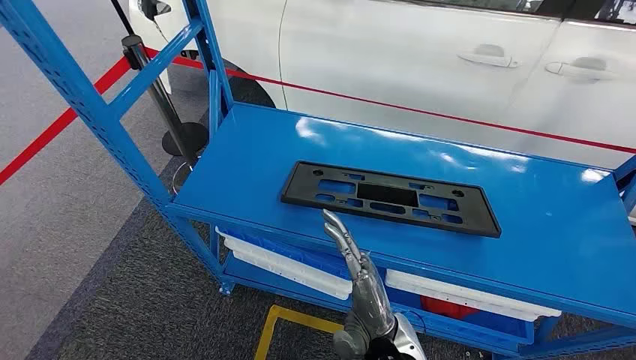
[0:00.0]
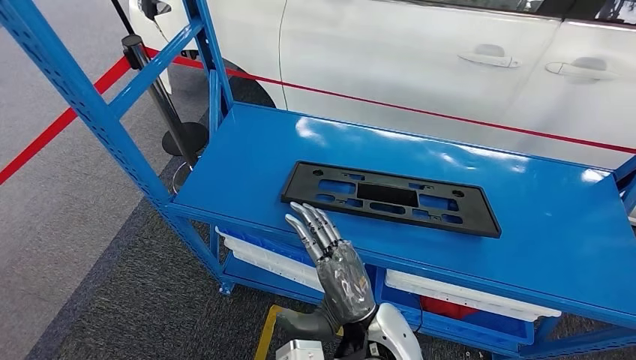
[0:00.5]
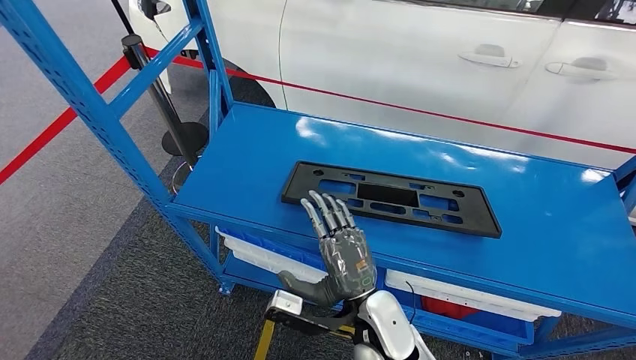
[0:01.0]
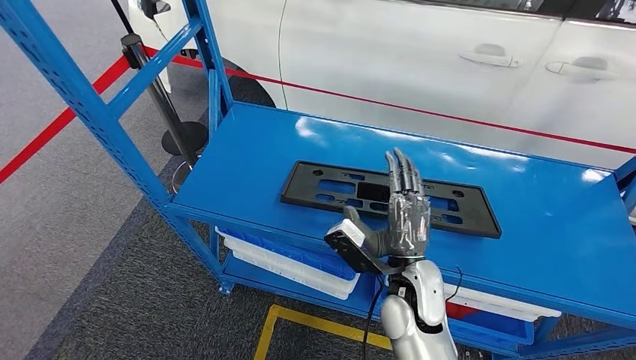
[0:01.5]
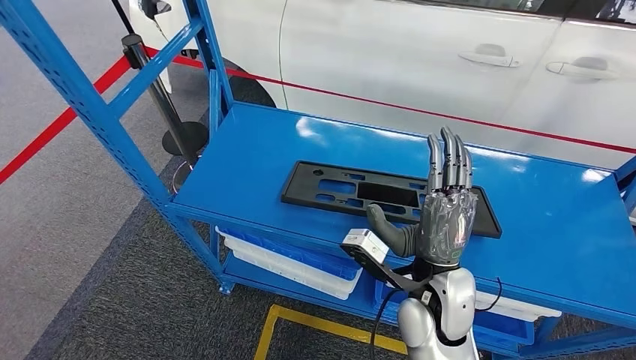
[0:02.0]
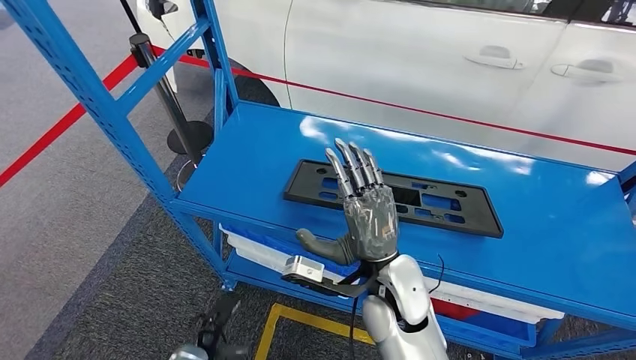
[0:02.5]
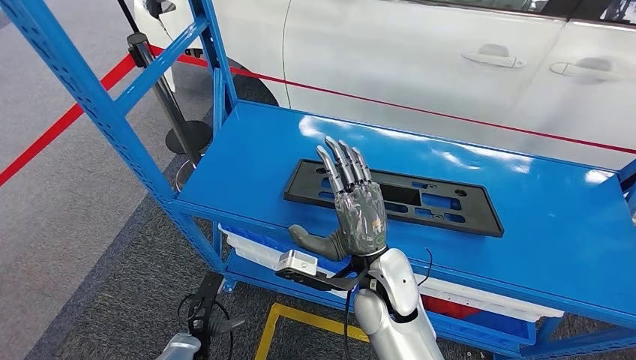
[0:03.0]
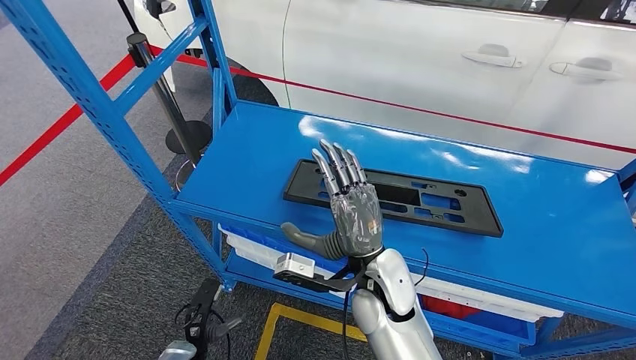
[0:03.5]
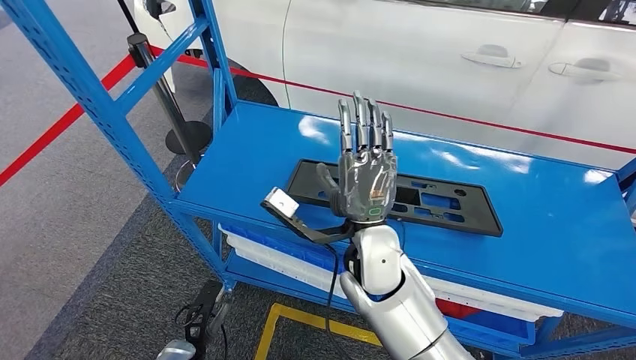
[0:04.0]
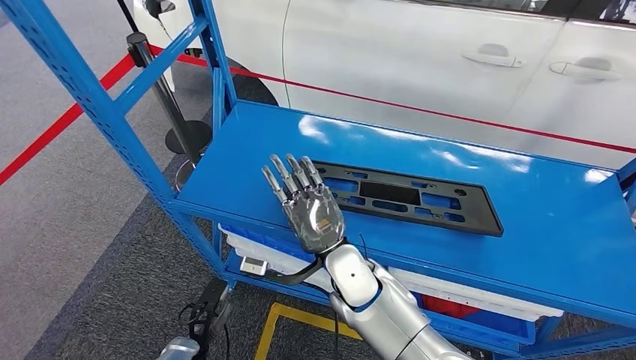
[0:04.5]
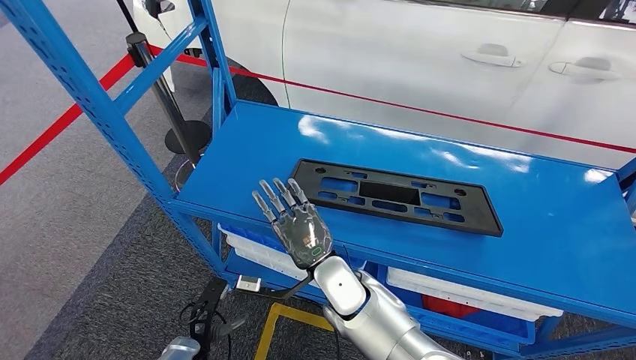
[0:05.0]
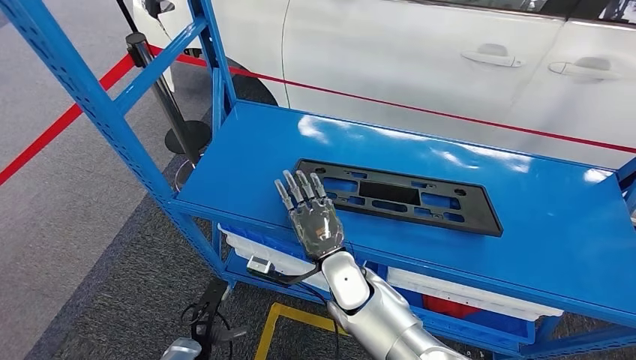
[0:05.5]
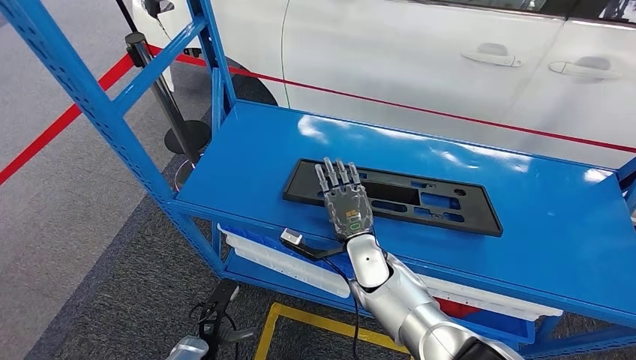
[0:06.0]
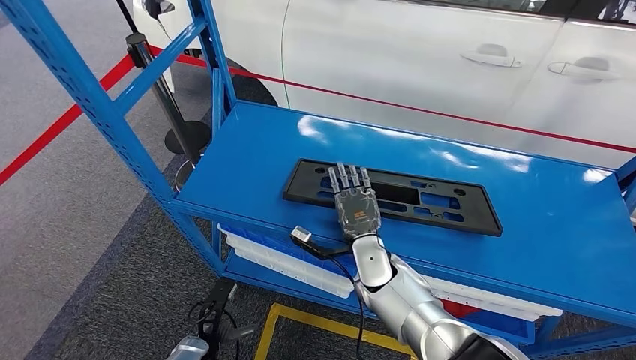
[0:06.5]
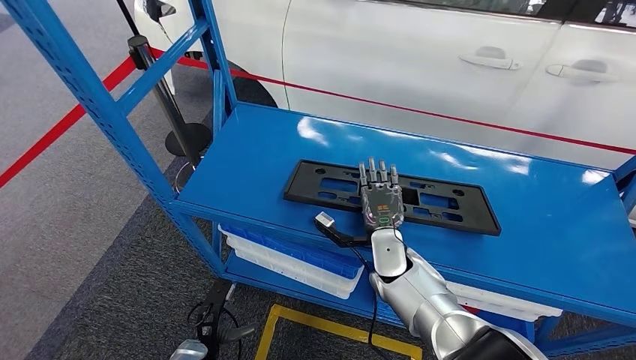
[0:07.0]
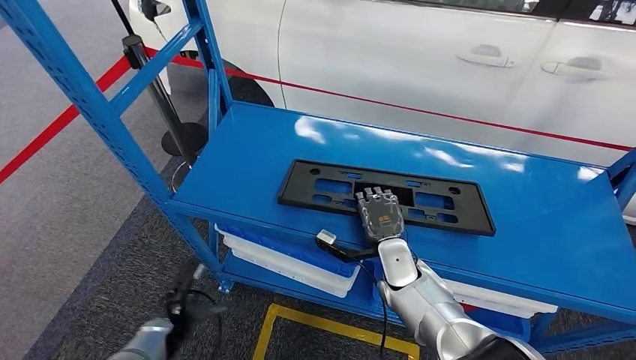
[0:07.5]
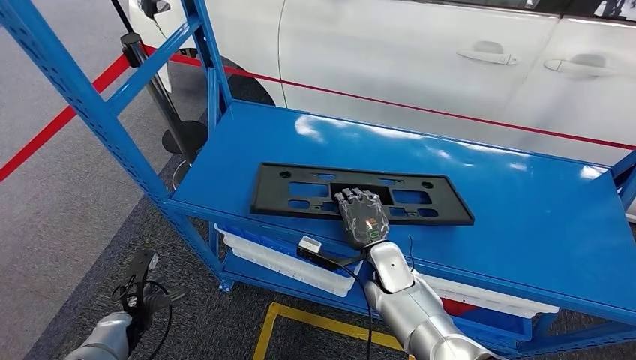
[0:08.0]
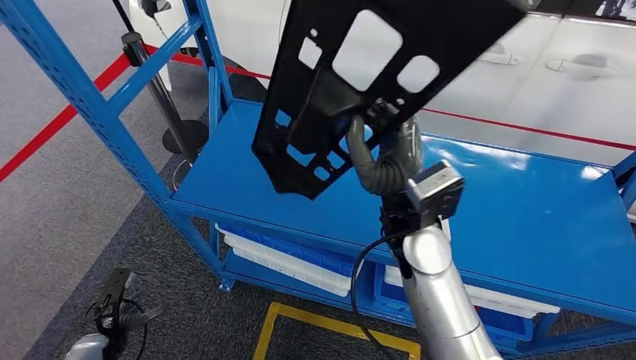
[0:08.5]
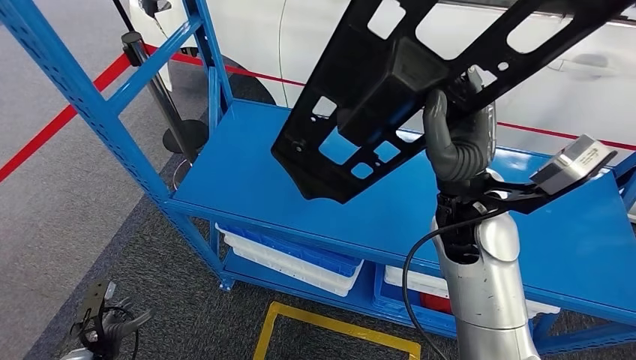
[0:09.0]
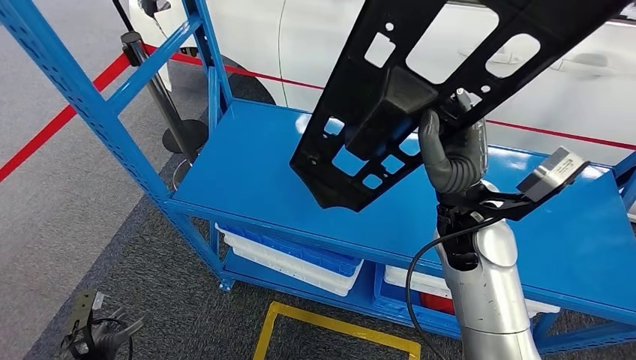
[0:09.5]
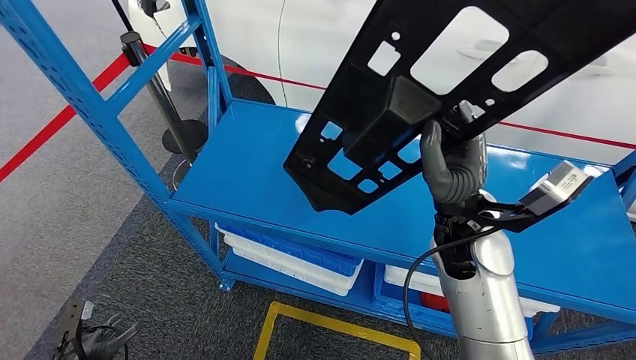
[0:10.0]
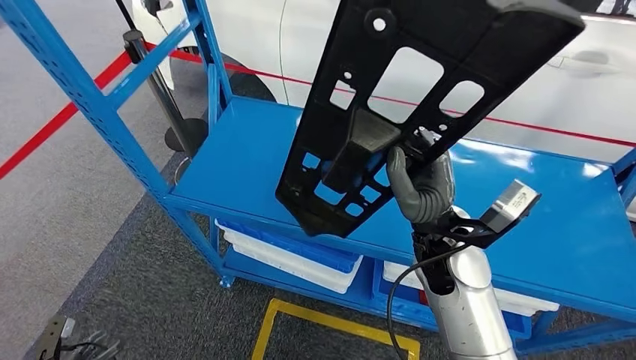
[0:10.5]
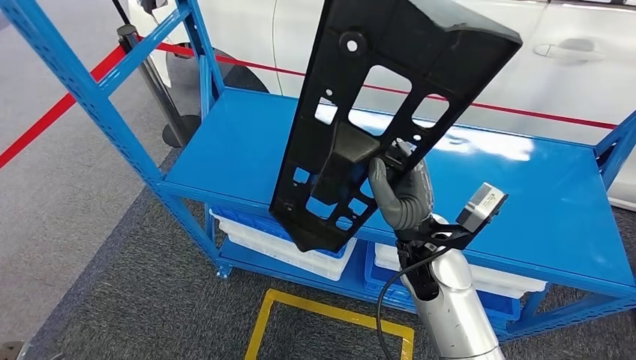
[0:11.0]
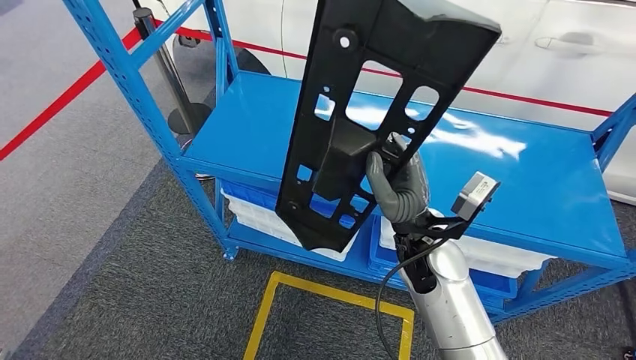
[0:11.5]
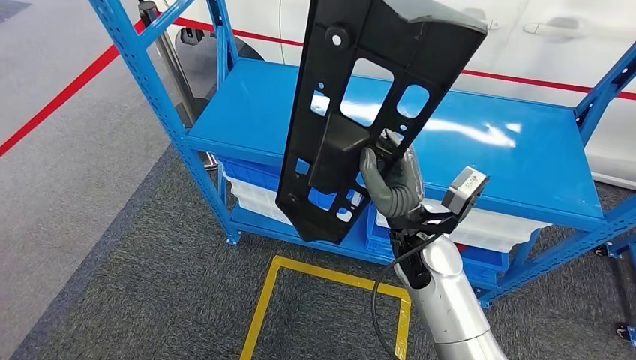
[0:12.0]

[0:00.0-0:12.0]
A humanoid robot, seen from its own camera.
Step, 0:00.0 to 0:10.0: Pick up the large material from the shelf.
0:02.0 to 0:04.0: The right hand goes approximately 10 cm to the left. The left hand goes approximately 15 cm forward.
0:04.0 to 0:06.0: The right hand heads downward and forward, covering about 15 cm.
0:06.0 to 0:08.0: The left hand is displaced to the left by some 15 cm.

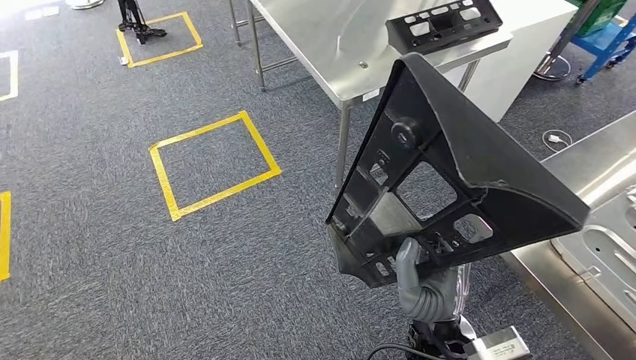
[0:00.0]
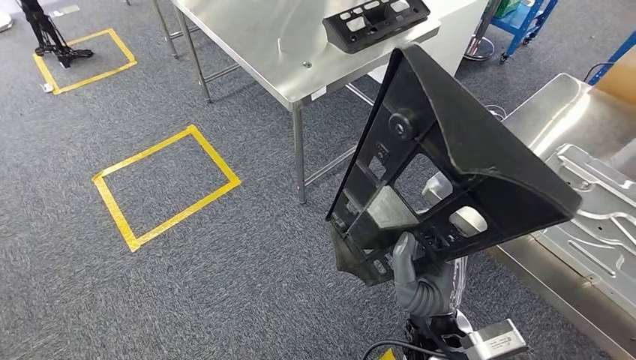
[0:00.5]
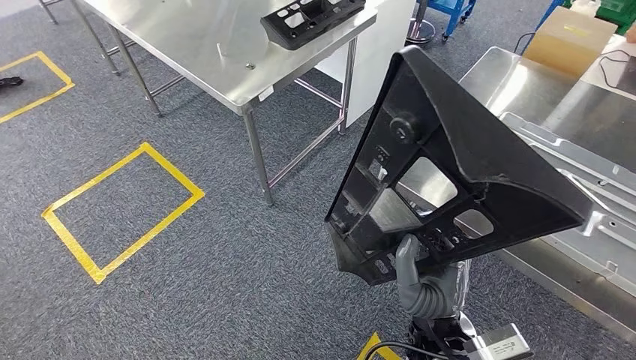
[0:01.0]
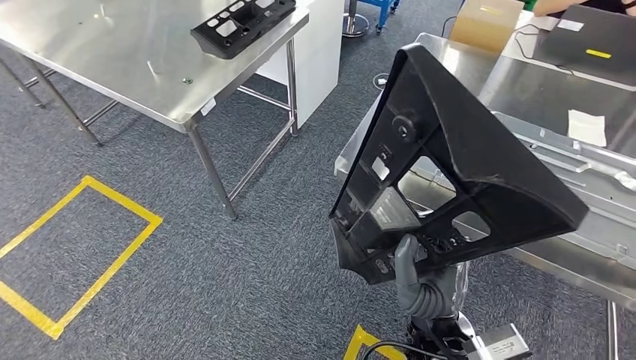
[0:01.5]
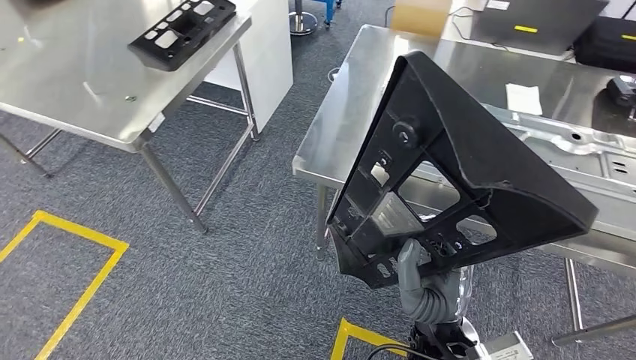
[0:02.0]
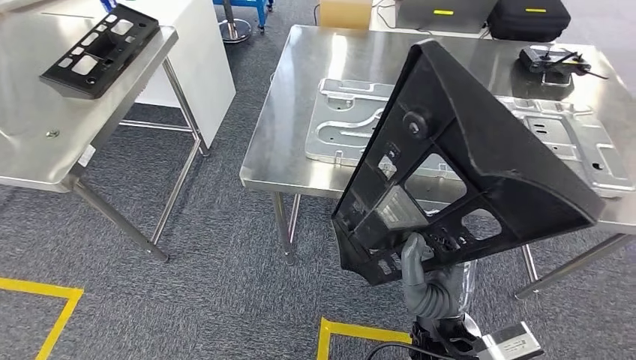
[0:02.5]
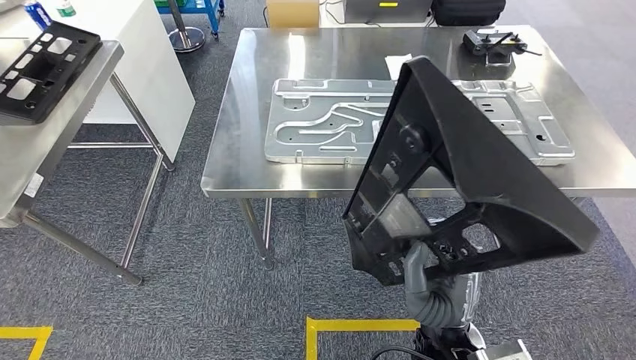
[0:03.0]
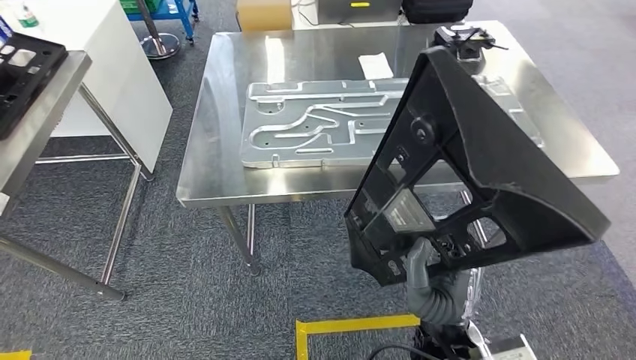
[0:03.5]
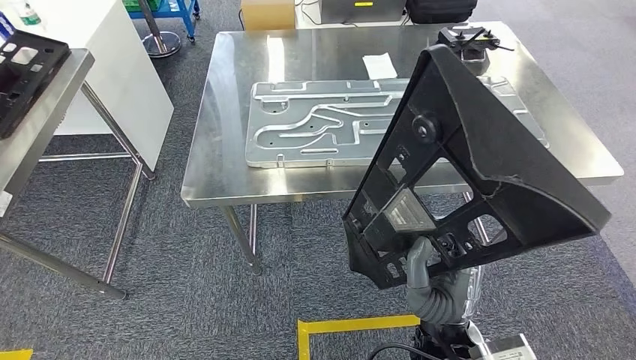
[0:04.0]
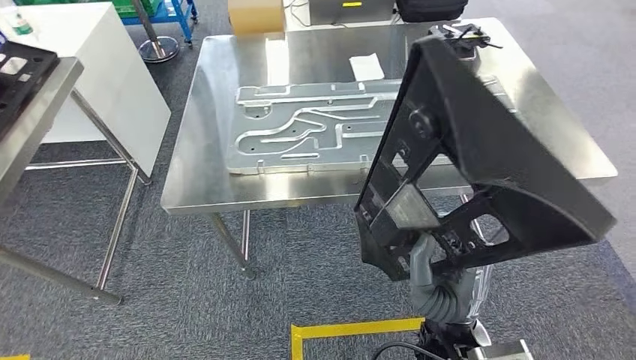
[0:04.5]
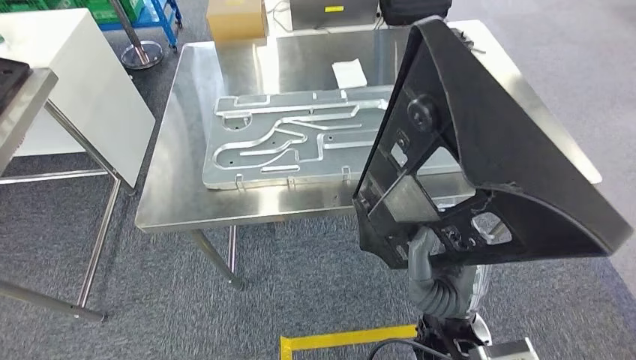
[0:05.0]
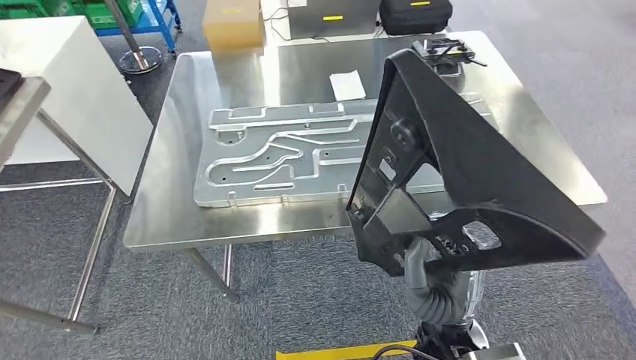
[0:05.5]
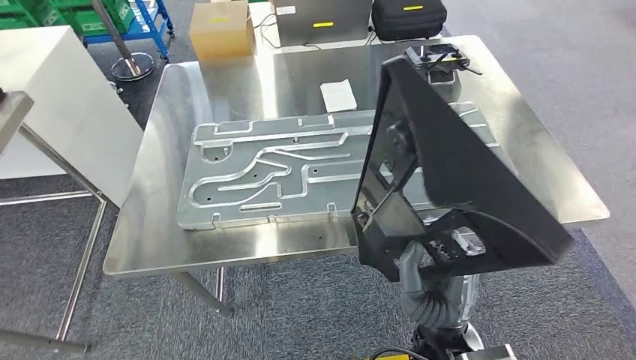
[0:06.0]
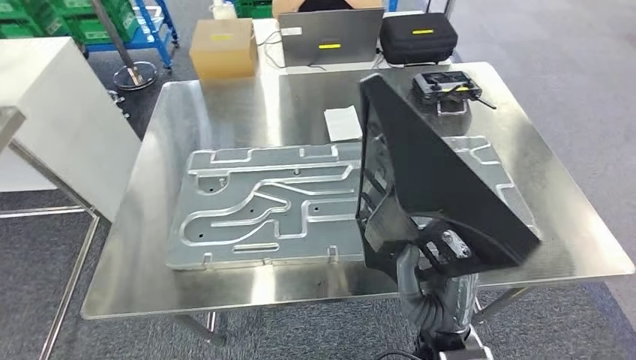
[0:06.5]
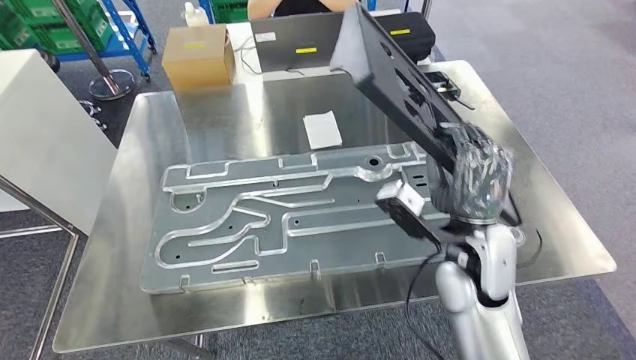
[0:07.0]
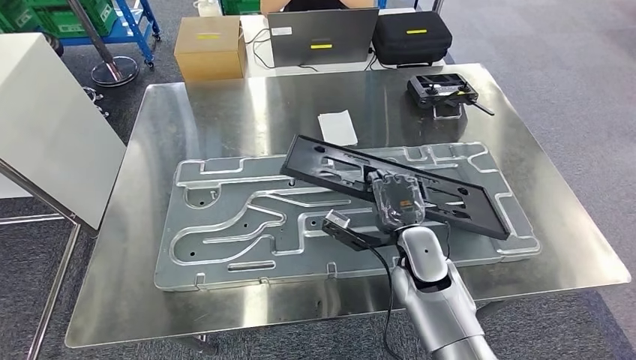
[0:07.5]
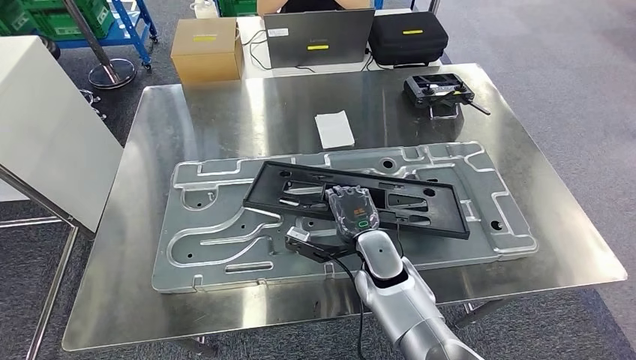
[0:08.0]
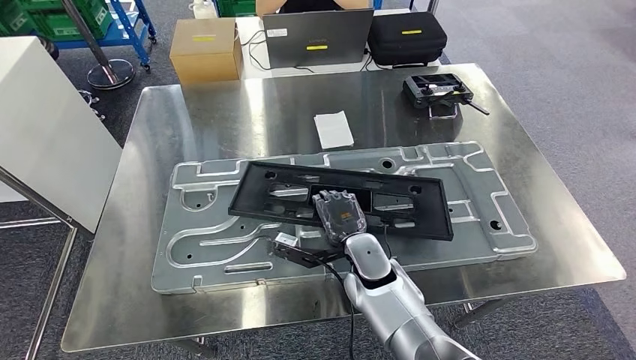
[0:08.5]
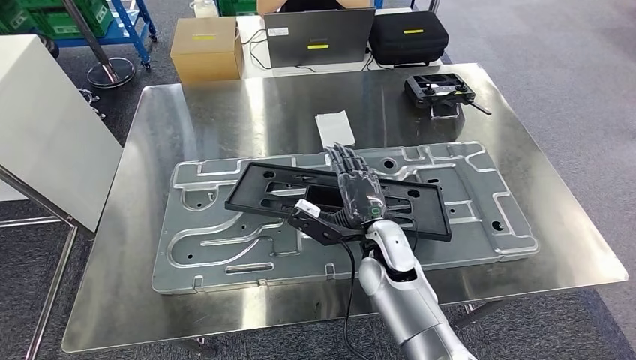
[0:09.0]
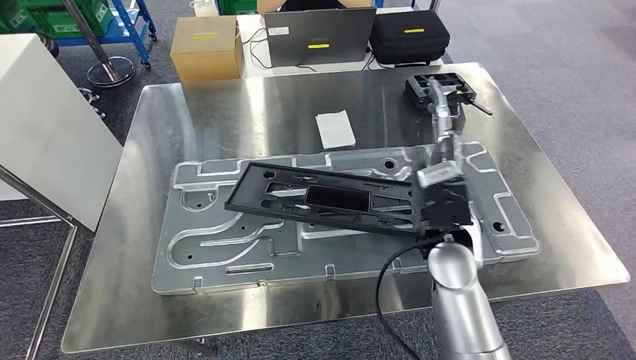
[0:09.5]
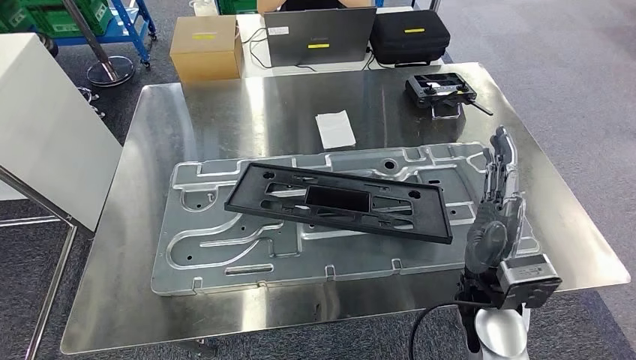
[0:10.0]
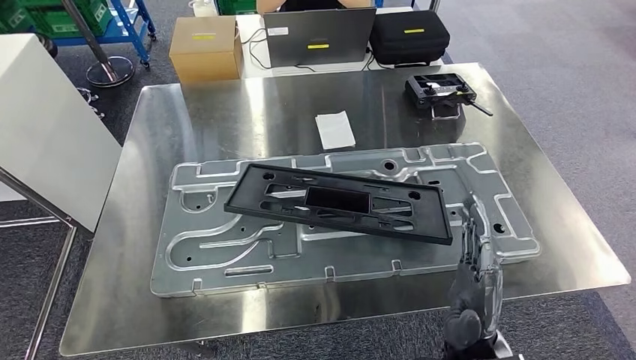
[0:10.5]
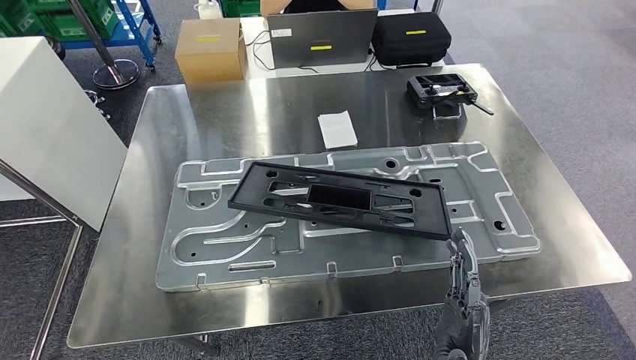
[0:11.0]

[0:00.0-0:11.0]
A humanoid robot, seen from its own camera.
Step, 0:00.0 to 0:04.0: Move the large material to the front of the workbench.
0:09.0 to 0:11.0: The right hand shifts approximately 20 cm backward.
